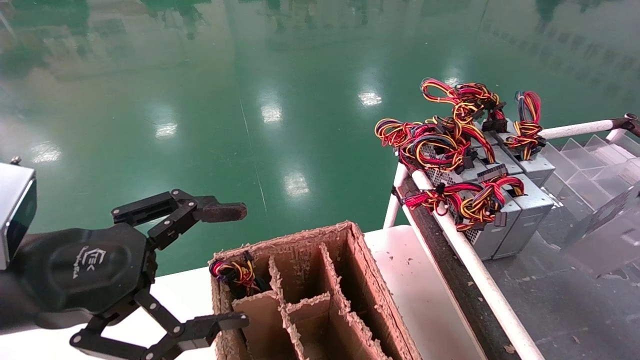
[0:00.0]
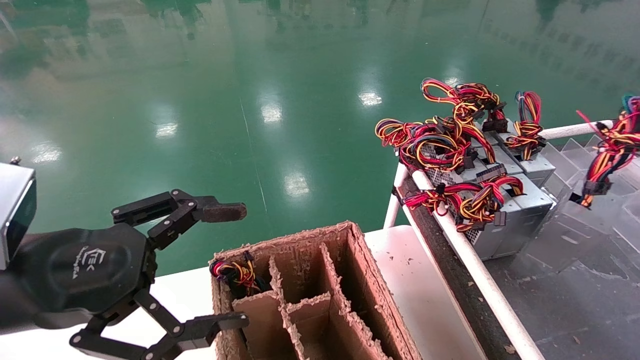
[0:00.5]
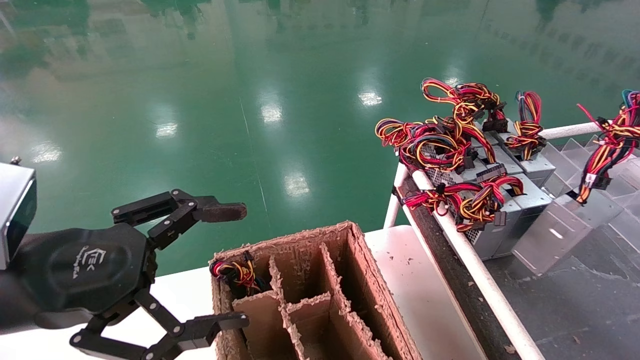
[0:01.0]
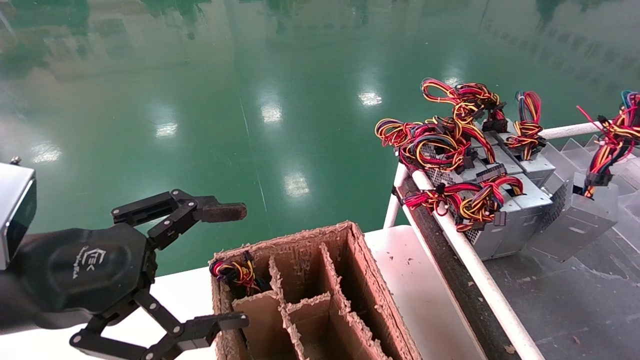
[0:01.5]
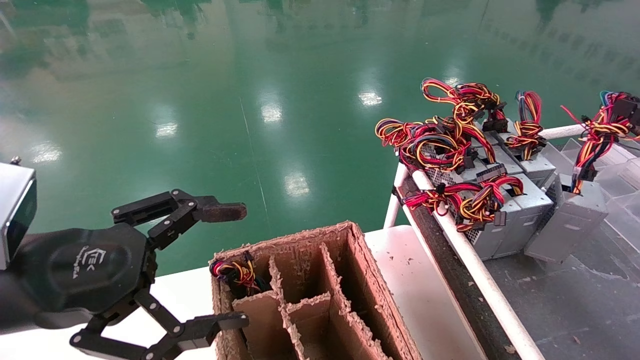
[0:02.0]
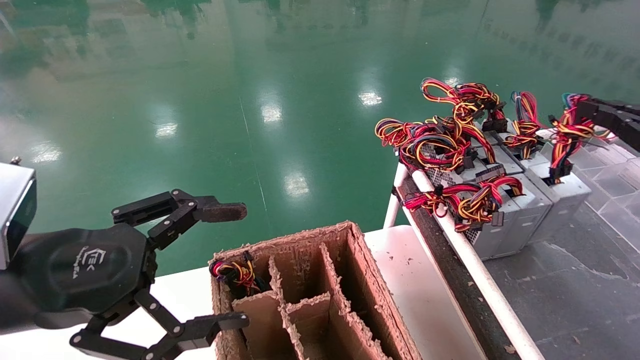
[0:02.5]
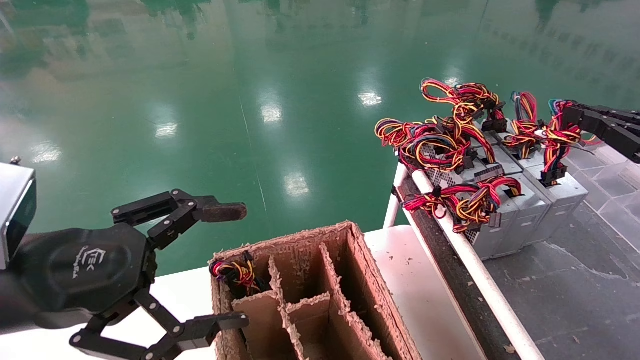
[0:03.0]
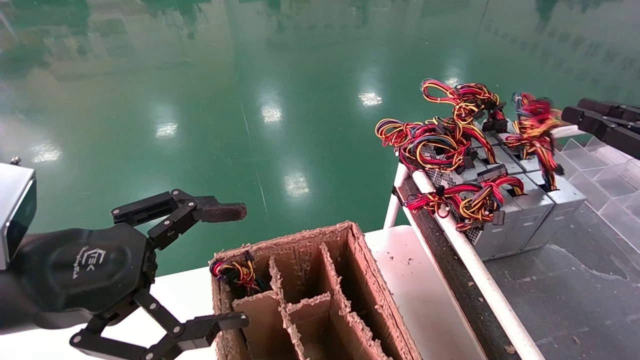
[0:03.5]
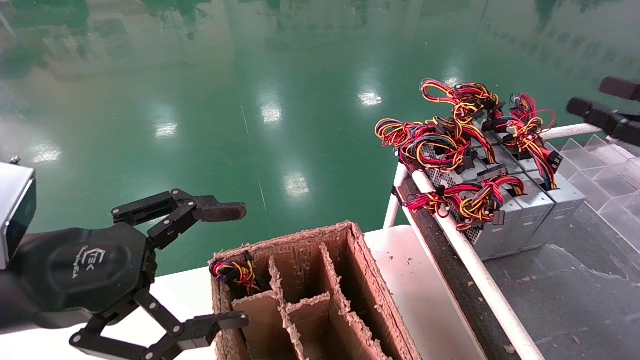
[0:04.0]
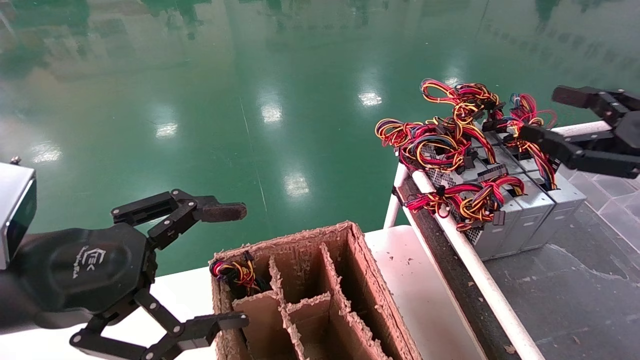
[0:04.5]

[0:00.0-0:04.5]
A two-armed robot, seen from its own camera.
Step, 0:00.0 to 0:03.0: Place the power supply on the operating table.
0:00.0 to 0:02.0: The right gripper moves forward, approximately 10 cm.
0:02.0 to 0:04.5: The right gripper heads to the left, covering some 10 cm, and opens its fingers.

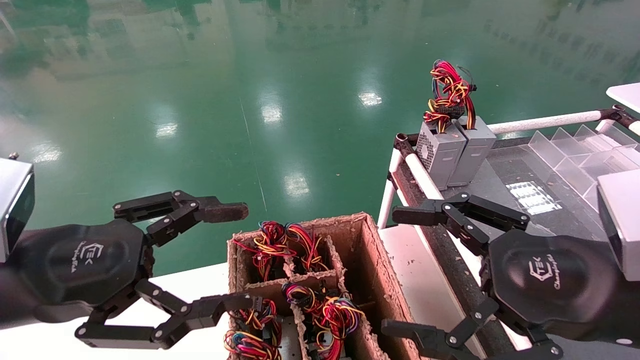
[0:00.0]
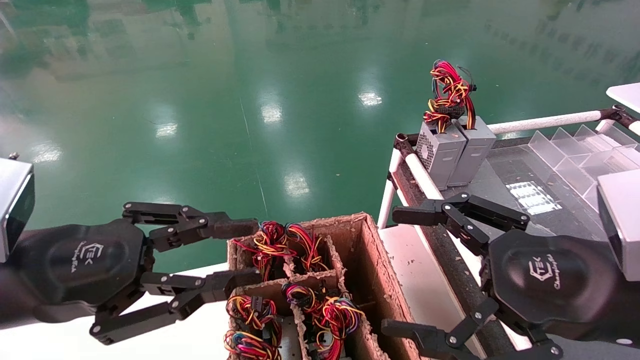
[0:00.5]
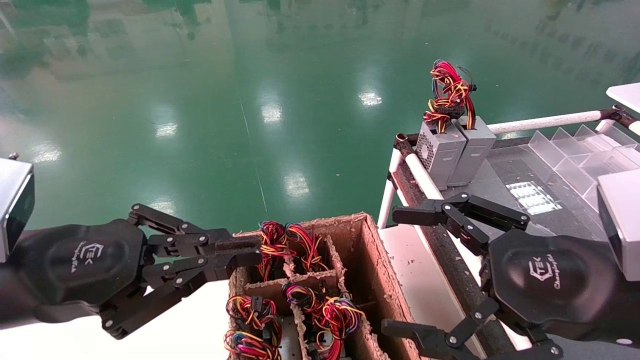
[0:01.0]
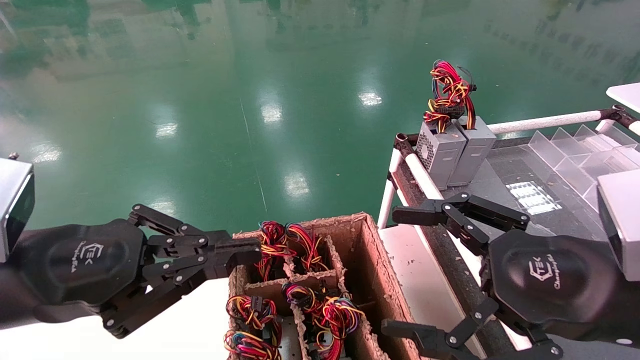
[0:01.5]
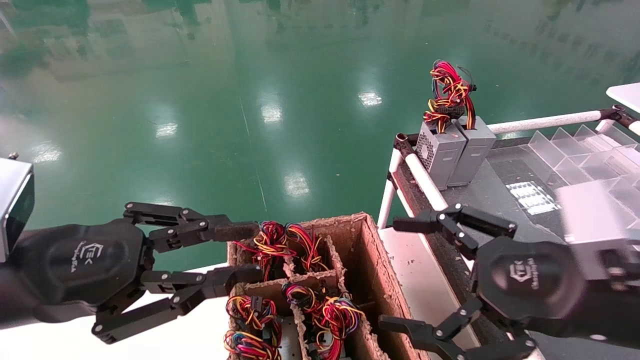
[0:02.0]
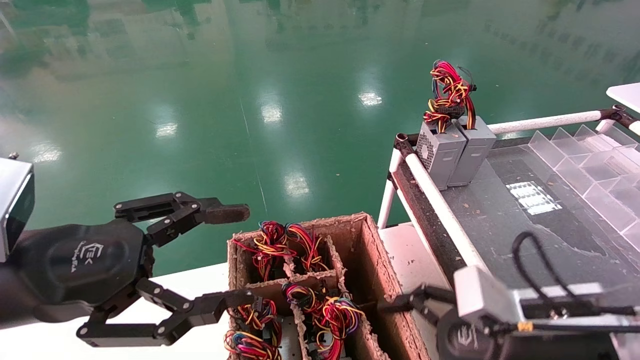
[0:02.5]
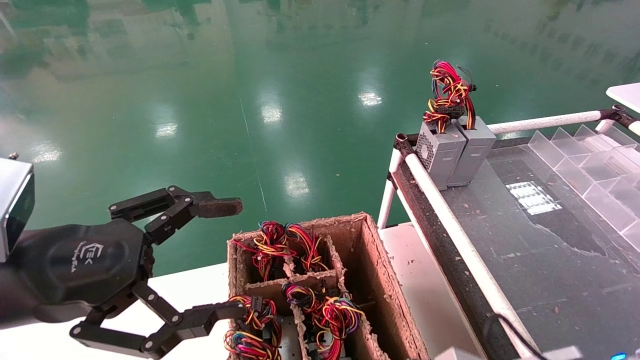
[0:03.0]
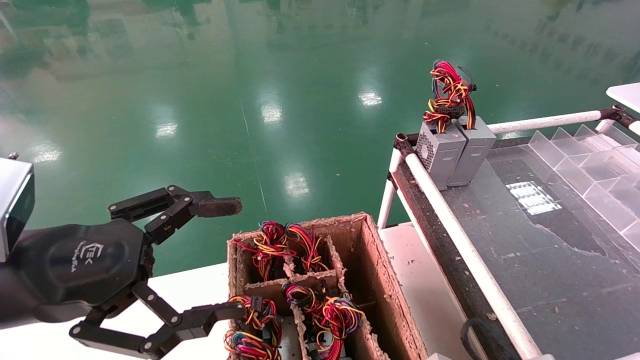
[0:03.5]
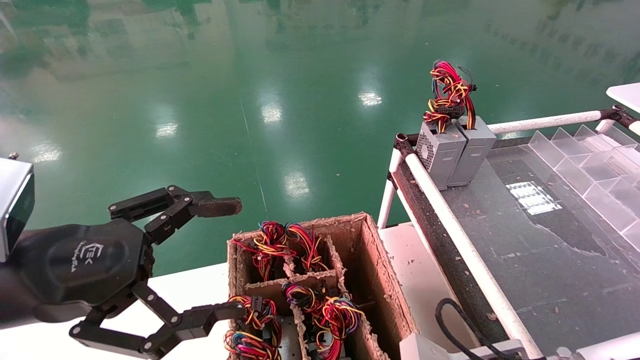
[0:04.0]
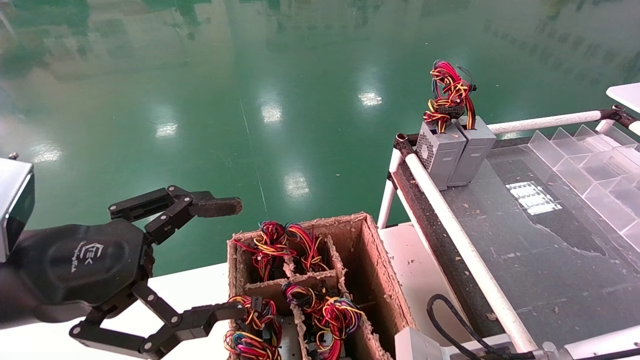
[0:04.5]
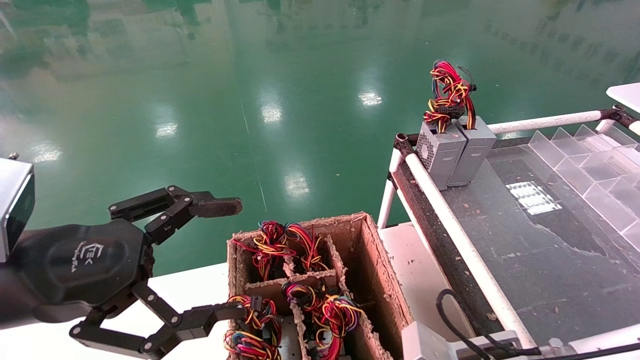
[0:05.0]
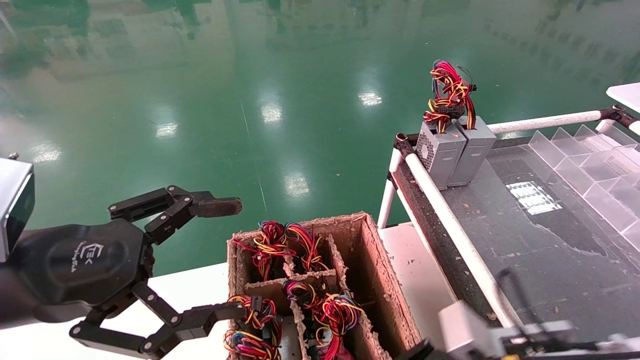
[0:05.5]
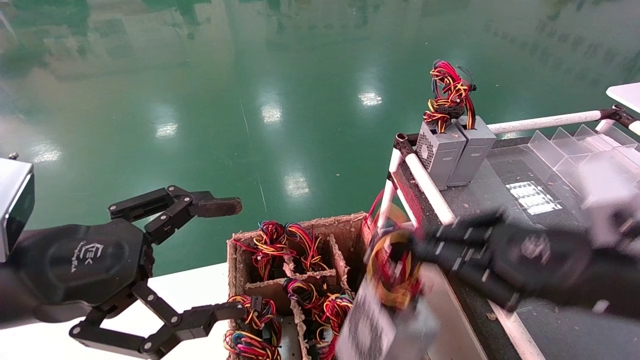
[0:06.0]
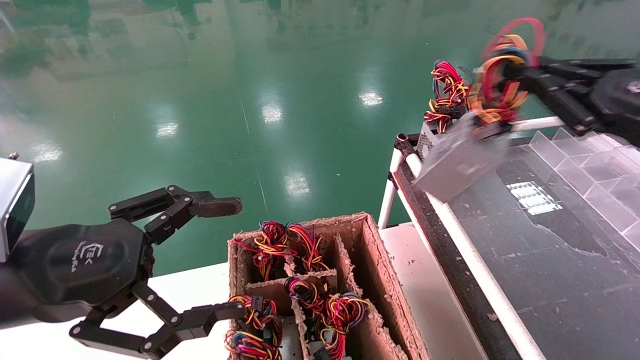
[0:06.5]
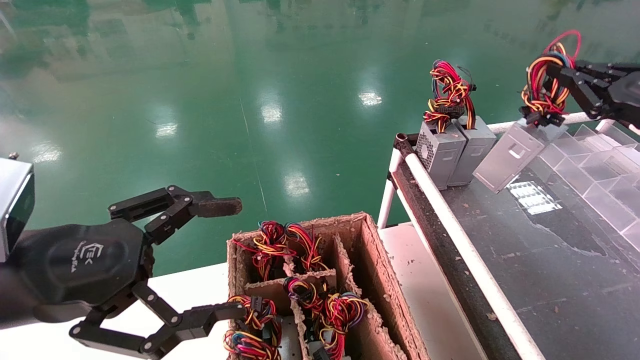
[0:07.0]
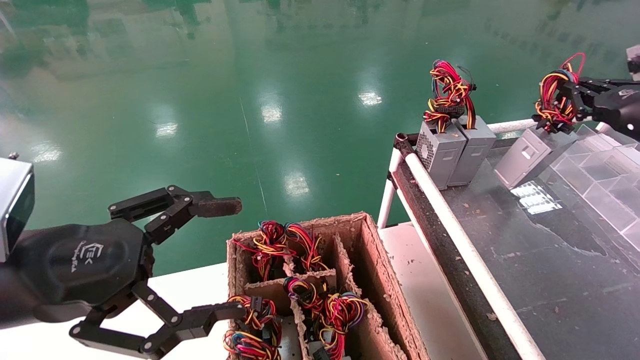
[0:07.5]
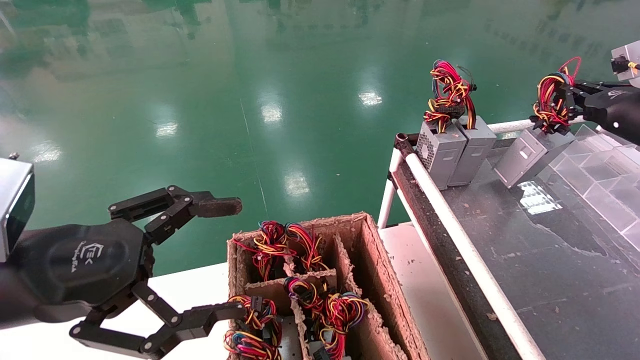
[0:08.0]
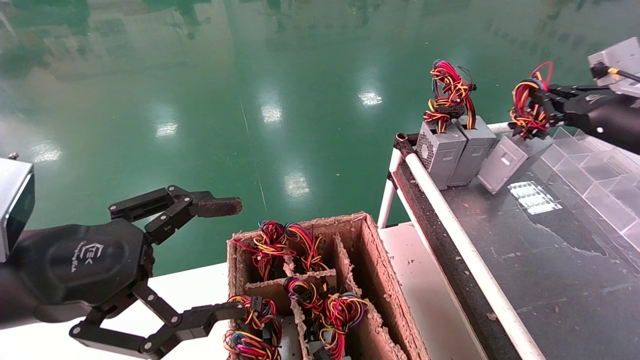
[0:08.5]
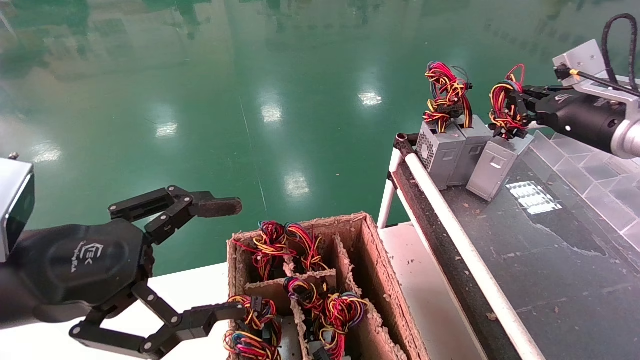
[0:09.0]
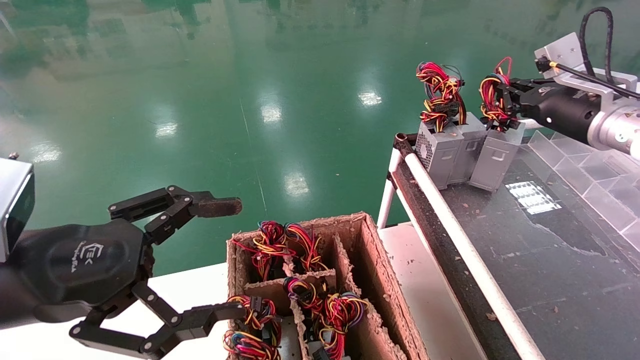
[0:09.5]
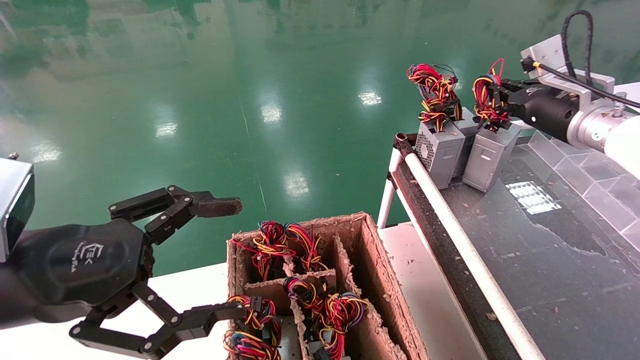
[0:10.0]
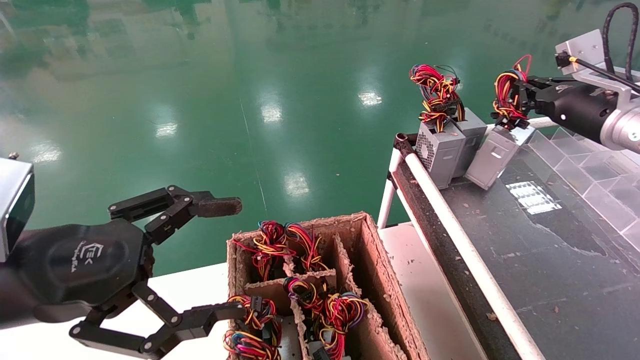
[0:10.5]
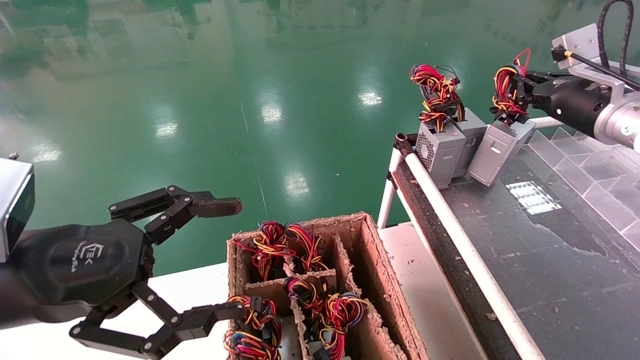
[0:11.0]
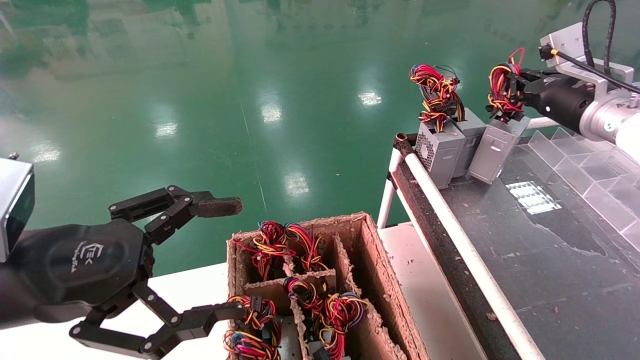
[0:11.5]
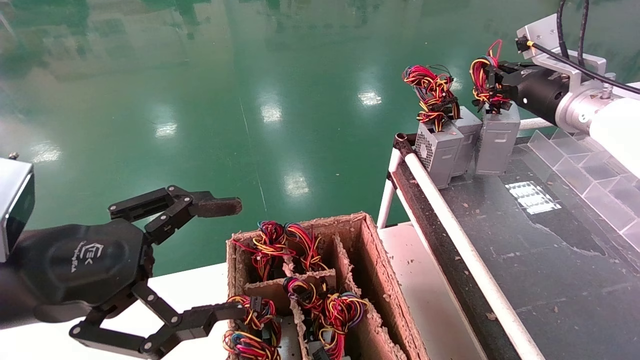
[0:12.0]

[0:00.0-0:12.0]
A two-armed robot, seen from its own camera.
Step, 0:01.5 to 0:05.0: Grab and lift the power supply from the large box.
0:00.0 to 0:02.0: The left gripper closes.
0:02.0 to 0:04.0: The left gripper opens its fingers, while the right gripper goes approximately 15 cm downward.
0:04.0 to 0:06.0: The right gripper goes about 15 cm upward and to the right, and closes its fingers.
0:06.0 to 0:08.0: The right gripper heads forward, to the right and upward, covering some 25 cm.
0:08.0 to 0:10.0: The right gripper heads to the left, covering approximately 10 cm.
0:10.0 to 0:12.0: The grippers stay close to where they were, moving slightly.

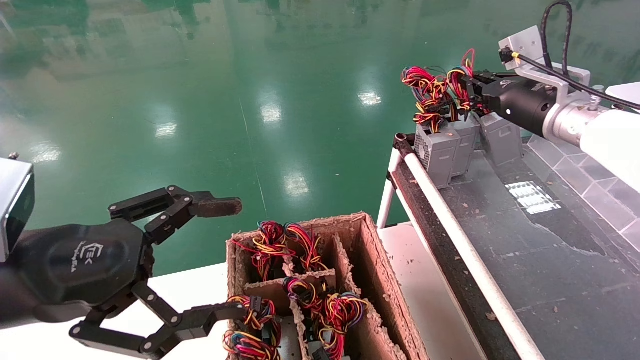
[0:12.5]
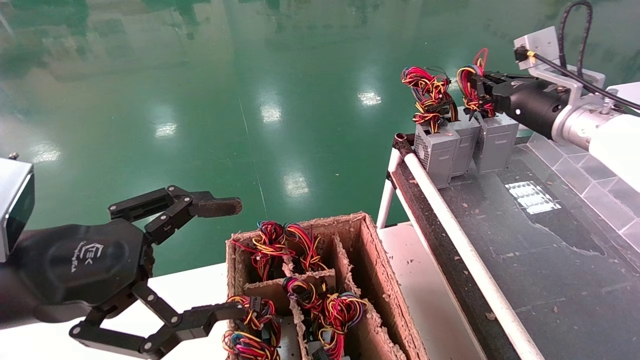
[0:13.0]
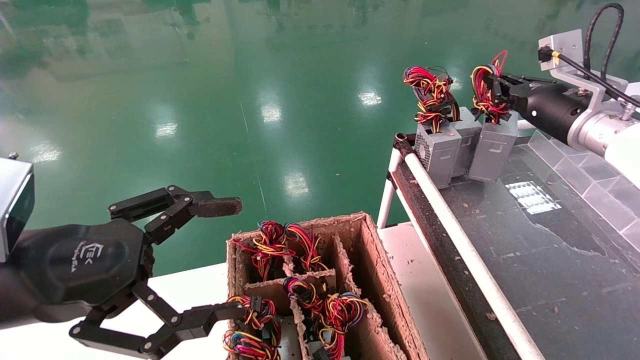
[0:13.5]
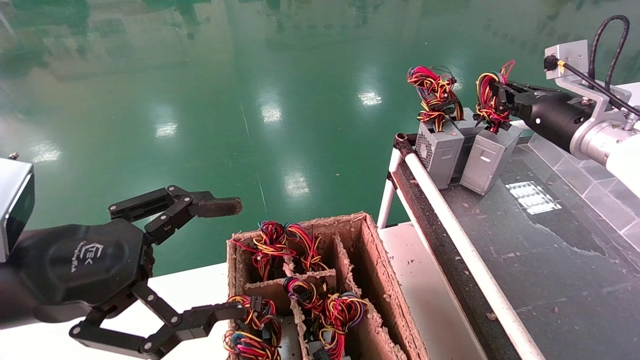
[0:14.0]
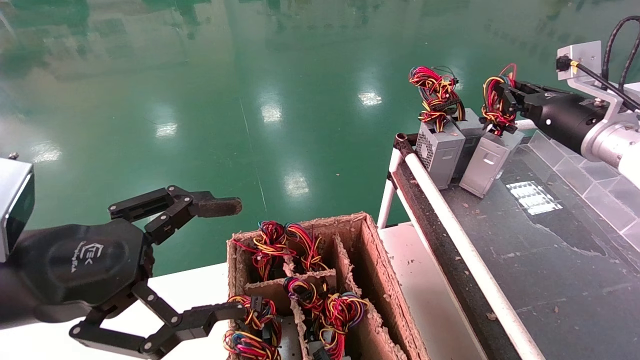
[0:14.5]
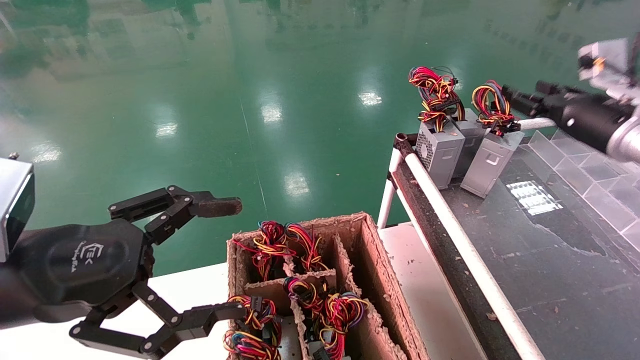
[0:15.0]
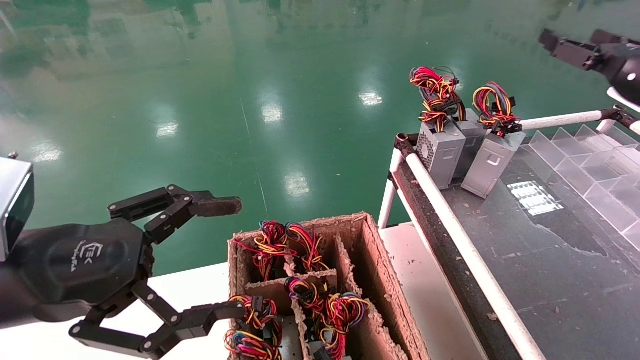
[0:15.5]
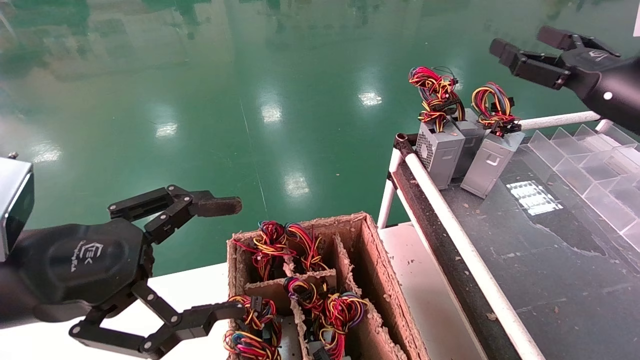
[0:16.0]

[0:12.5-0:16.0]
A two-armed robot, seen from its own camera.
0:12.5 to 0:14.5: The right gripper moves to the right, about 5 cm.
0:14.5 to 0:16.0: The right gripper goes roughly 10 cm backward, and opens.
